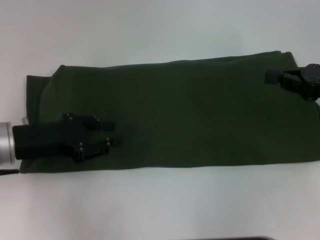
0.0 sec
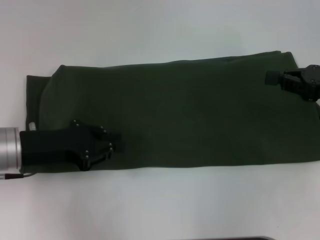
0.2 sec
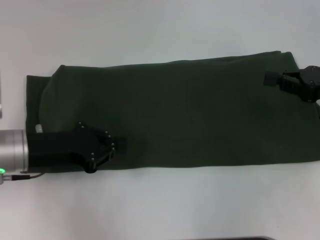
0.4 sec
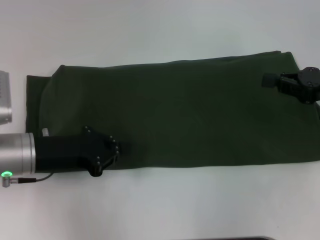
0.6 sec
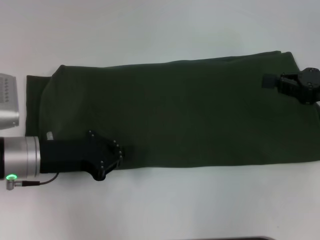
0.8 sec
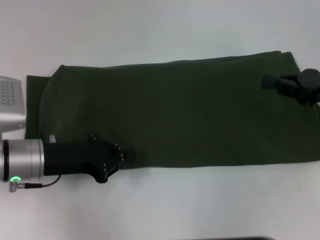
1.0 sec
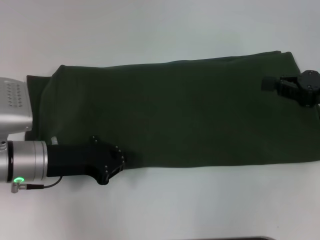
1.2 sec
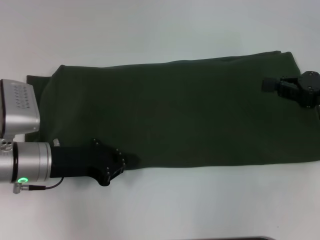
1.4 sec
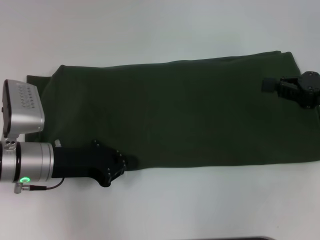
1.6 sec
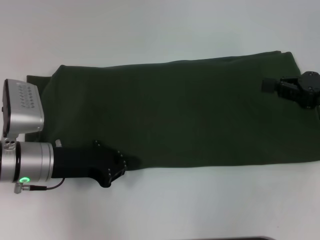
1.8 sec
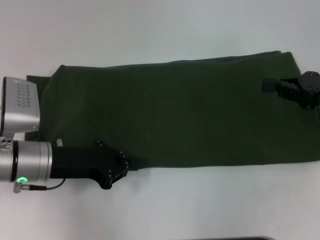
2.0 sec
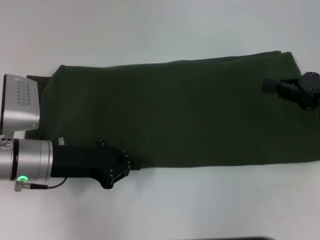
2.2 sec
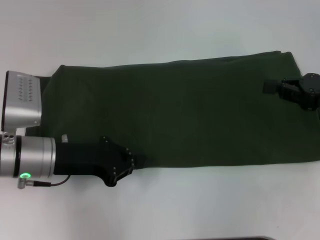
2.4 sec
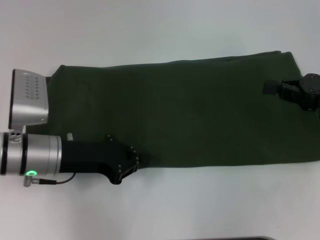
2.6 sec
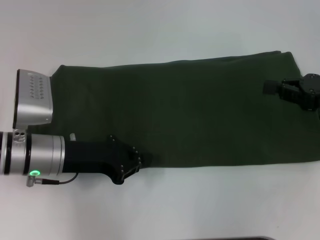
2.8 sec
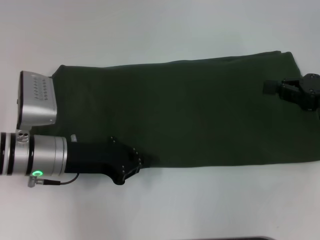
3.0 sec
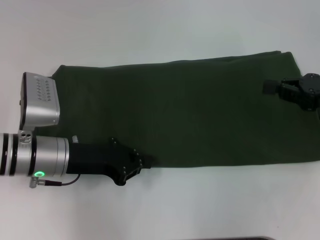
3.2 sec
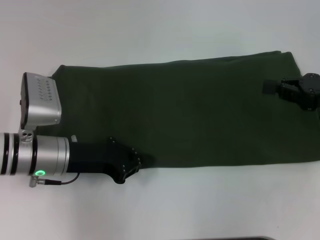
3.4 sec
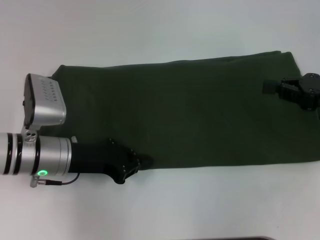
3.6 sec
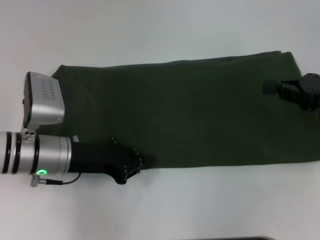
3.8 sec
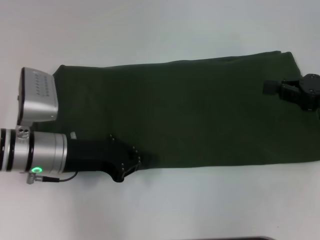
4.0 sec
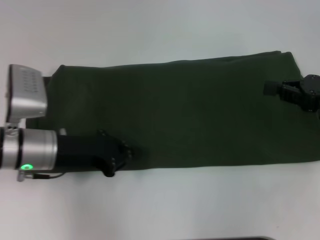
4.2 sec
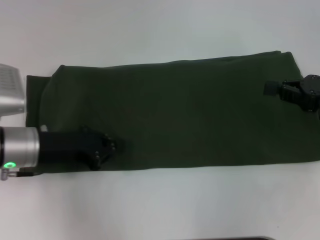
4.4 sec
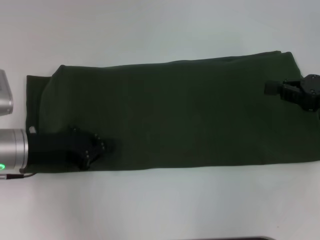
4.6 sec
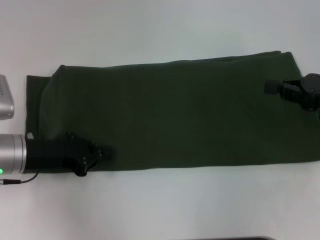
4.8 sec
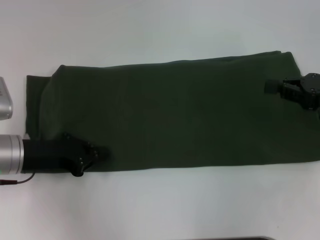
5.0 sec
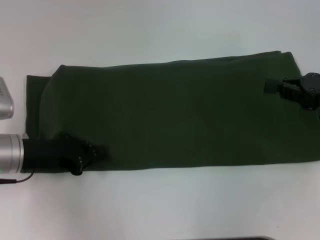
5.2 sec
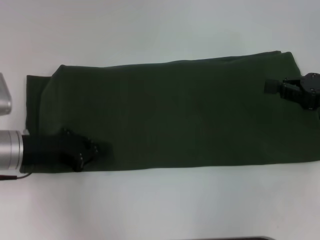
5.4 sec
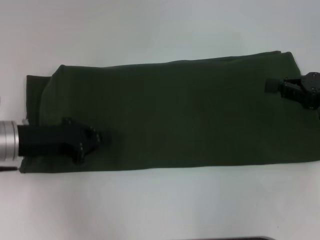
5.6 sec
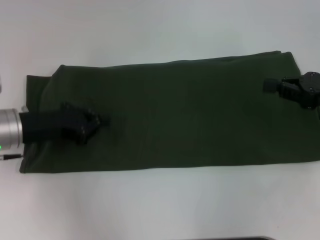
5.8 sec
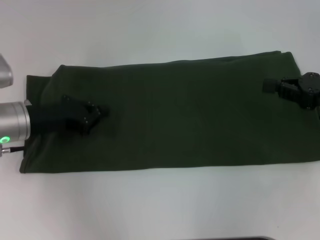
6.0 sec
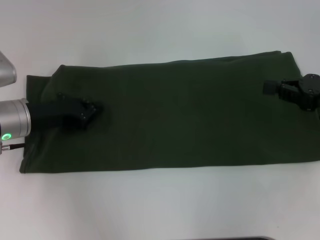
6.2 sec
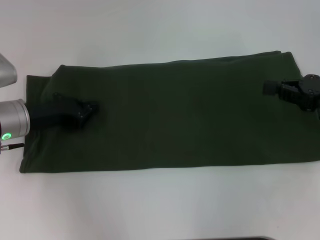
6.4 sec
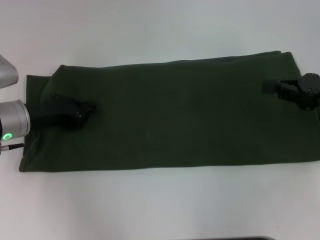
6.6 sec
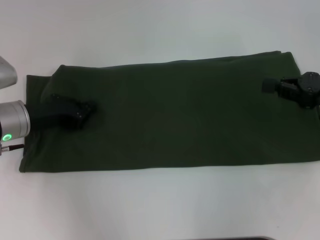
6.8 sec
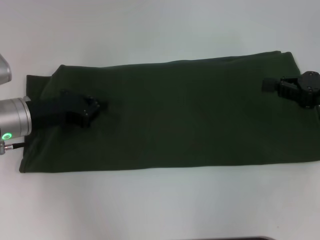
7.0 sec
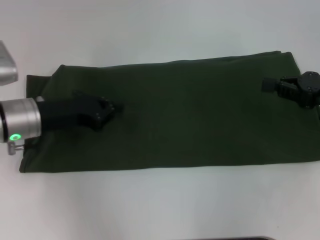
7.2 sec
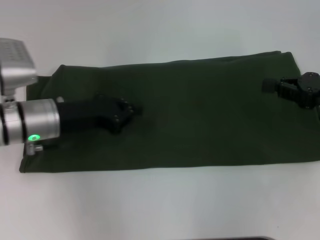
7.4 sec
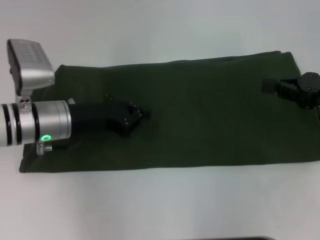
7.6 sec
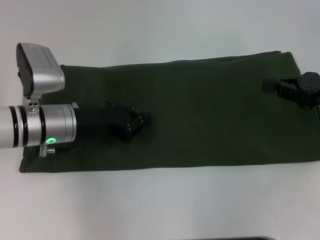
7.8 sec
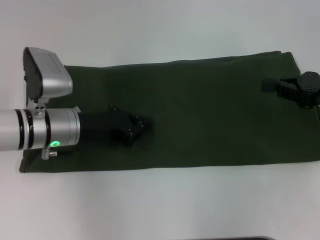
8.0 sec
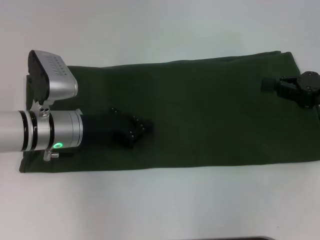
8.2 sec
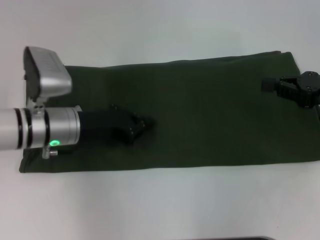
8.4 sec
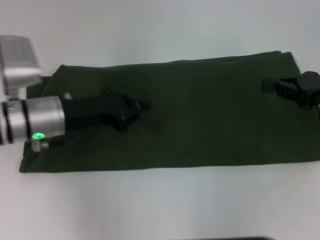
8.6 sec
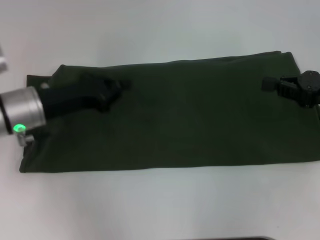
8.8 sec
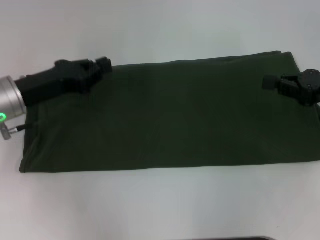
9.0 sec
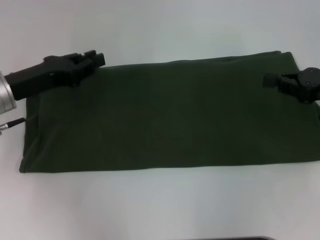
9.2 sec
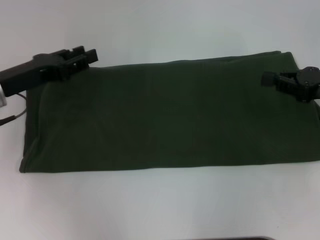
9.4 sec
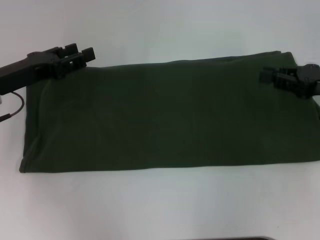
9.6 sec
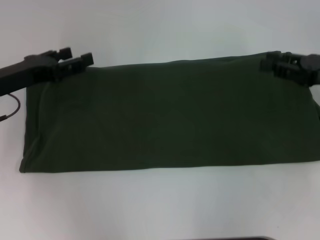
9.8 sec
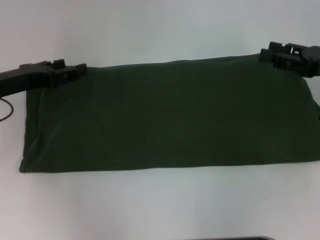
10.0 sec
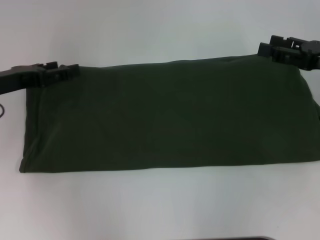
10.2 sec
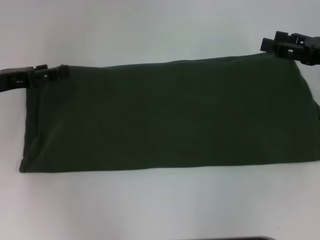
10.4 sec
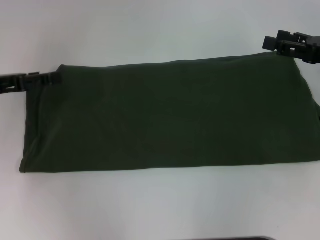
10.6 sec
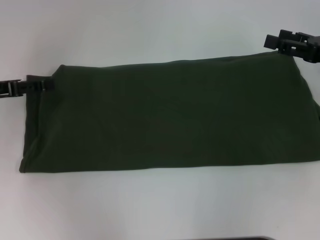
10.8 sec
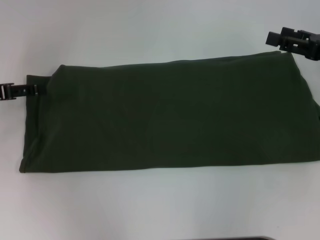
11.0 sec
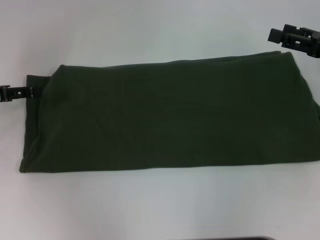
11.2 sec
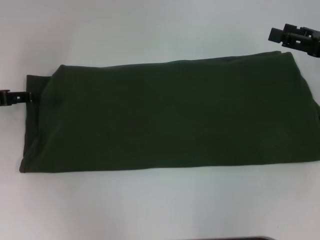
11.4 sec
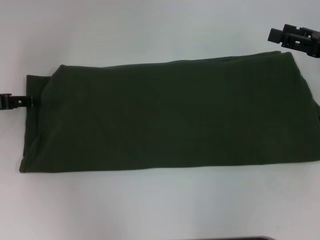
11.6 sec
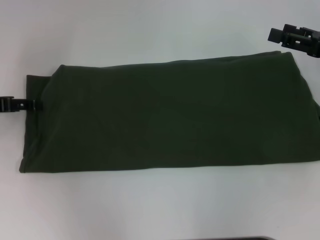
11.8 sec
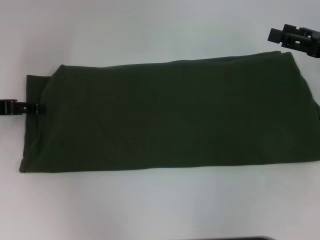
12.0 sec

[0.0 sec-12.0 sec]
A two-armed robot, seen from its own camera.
0.0 sec to 1.6 sec: The left gripper shifts by roughly 5 cm, and closes up.
1.6 sec to 6.0 sec: The grippers move only a little.
6.0 sec to 7.6 sec: The left gripper is displaced to the right by approximately 5 cm.
7.6 sec to 9.0 sec: The left gripper heads to the left, covering some 5 cm.
9.0 sec to 10.4 sec: The right gripper opens. The left gripper moves to the left, about 5 cm, and opens.

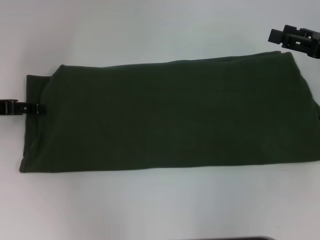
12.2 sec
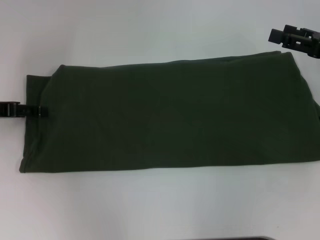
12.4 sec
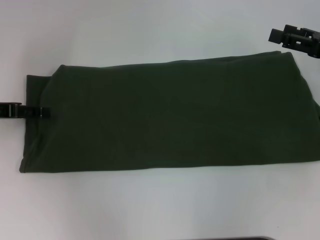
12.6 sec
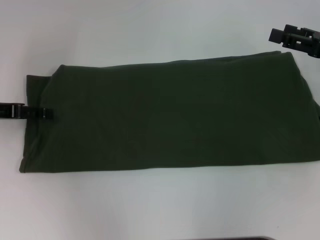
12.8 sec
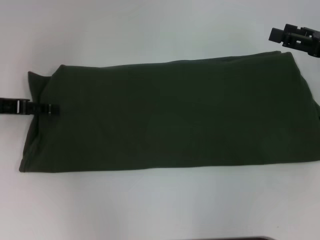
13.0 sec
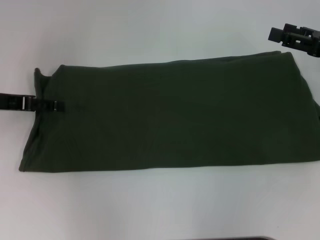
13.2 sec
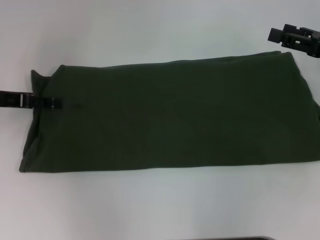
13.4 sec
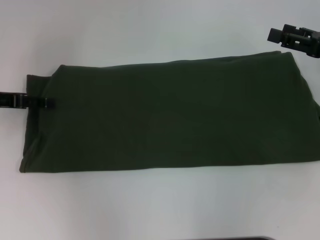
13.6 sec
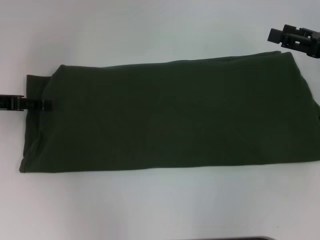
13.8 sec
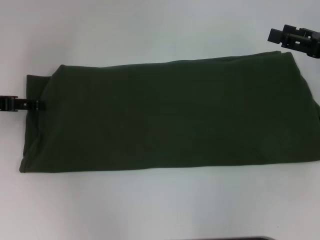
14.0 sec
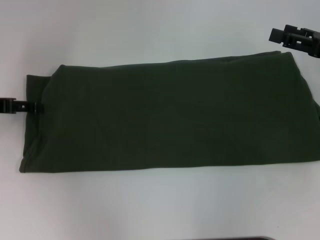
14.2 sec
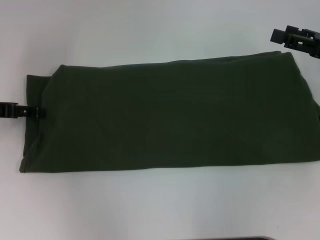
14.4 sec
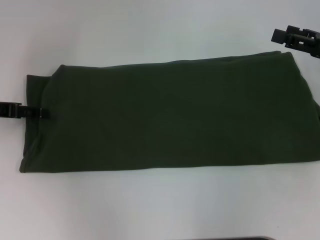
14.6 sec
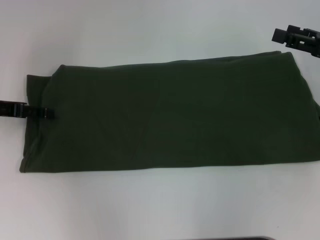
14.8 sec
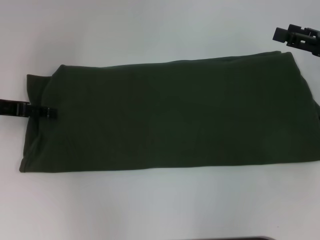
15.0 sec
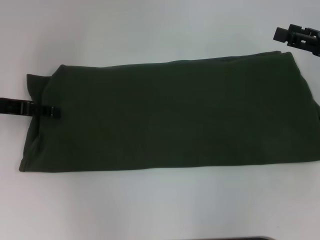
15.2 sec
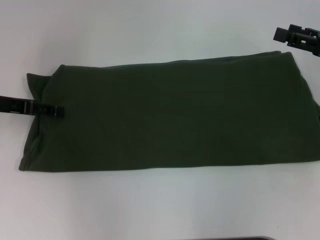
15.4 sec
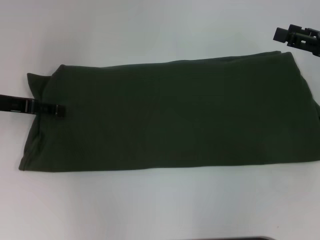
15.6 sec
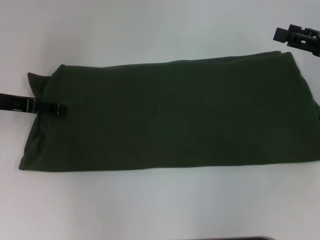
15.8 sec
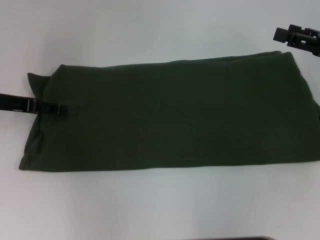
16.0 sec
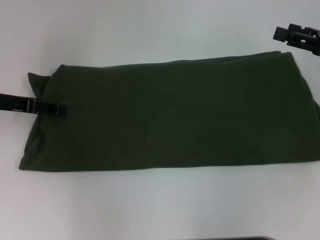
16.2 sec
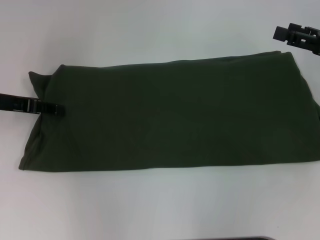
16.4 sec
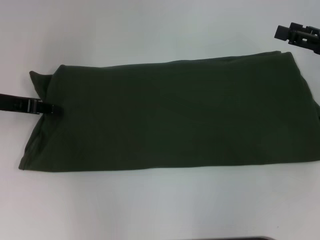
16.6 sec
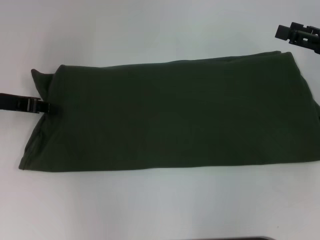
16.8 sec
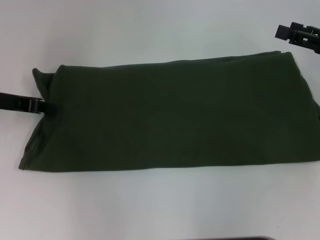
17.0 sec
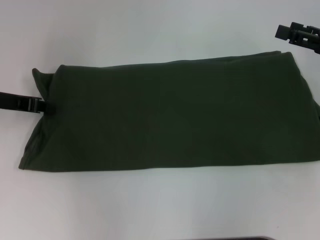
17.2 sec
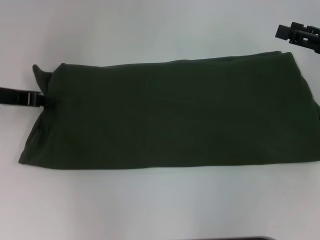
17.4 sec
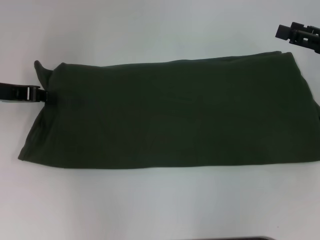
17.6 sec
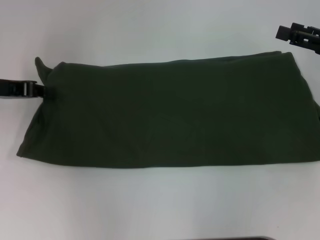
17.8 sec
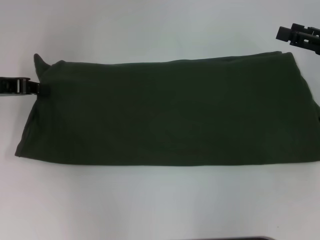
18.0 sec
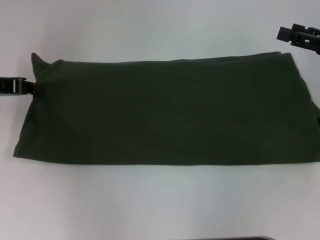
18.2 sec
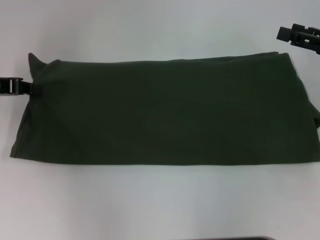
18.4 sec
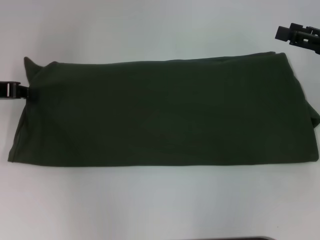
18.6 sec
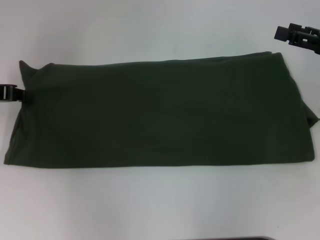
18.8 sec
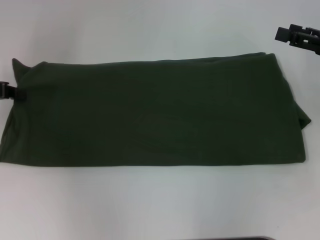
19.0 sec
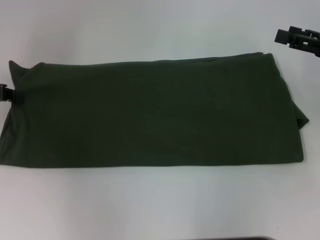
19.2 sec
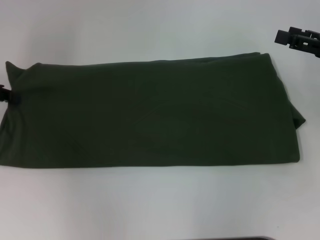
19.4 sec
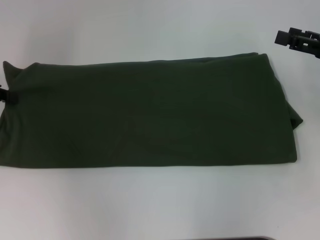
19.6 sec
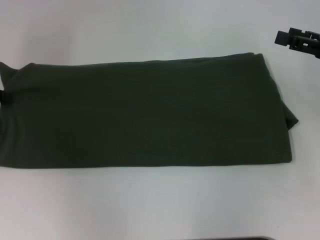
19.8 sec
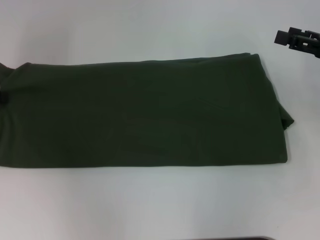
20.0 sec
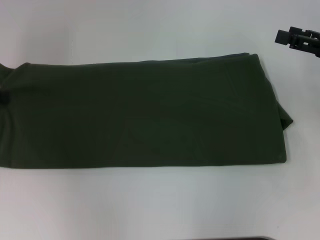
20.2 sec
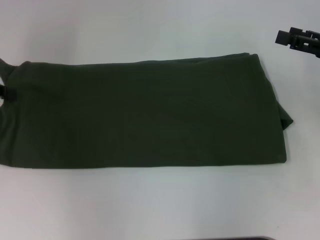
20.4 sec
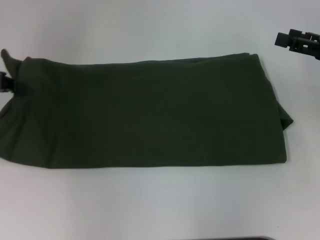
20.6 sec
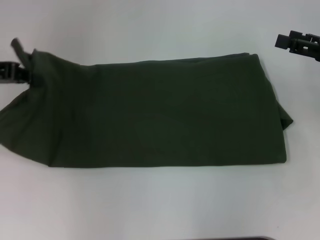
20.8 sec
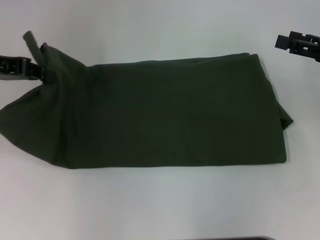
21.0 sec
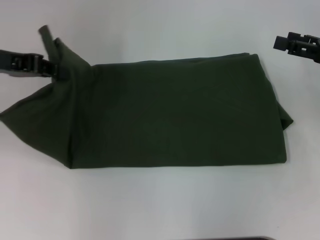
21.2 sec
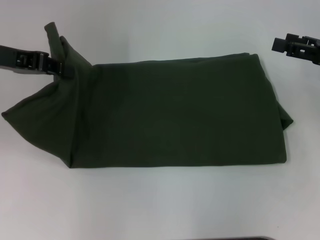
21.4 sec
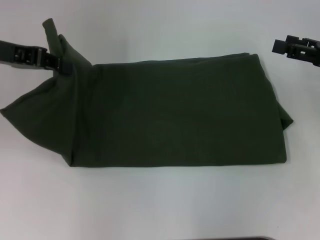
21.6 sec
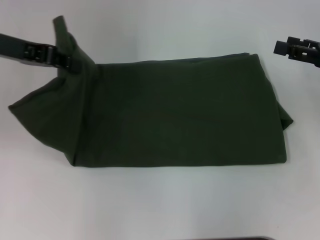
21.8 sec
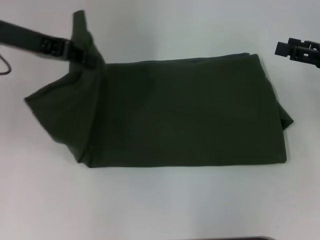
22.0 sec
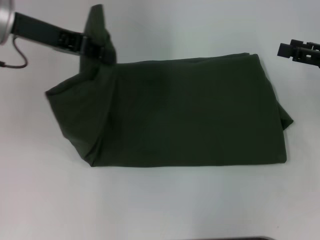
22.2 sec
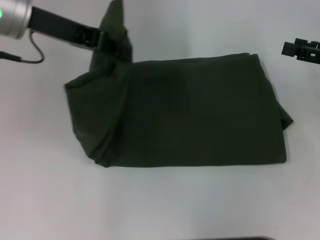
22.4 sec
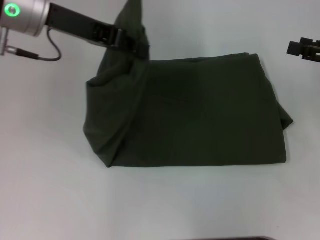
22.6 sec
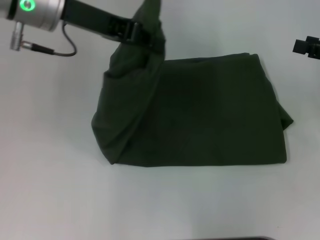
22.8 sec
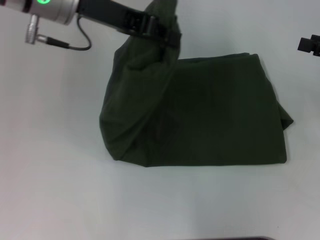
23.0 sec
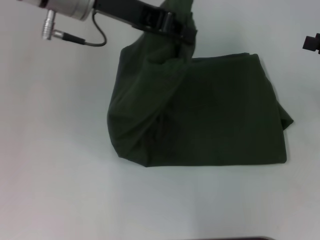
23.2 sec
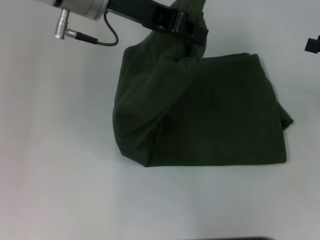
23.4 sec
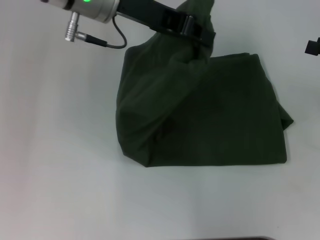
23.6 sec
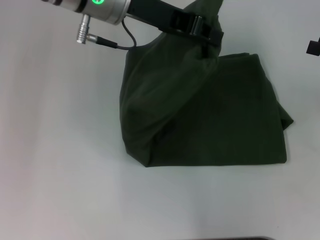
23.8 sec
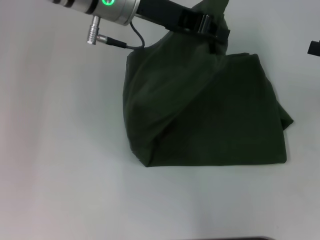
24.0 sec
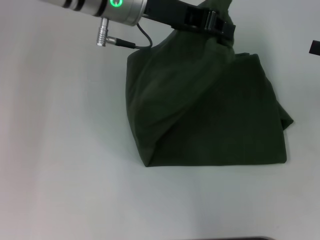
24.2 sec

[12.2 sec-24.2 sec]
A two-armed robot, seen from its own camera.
13.8 sec to 15.2 sec: Neither gripper changes place.
15.2 sec to 16.6 sec: Neither gripper changes place.
16.6 sec to 18.2 sec: The left gripper closes its fingers.
18.2 sec to 19.8 sec: The grippers make only small movements.
19.8 sec to 21.2 sec: The left gripper heads to the right, covering some 5 cm.
21.2 sec to 22.6 sec: The left gripper is displaced to the right by some 10 cm.
22.6 sec to 24.2 sec: The left gripper moves to the right, approximately 10 cm.
